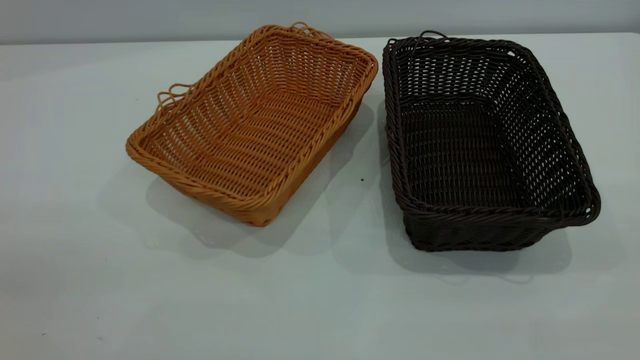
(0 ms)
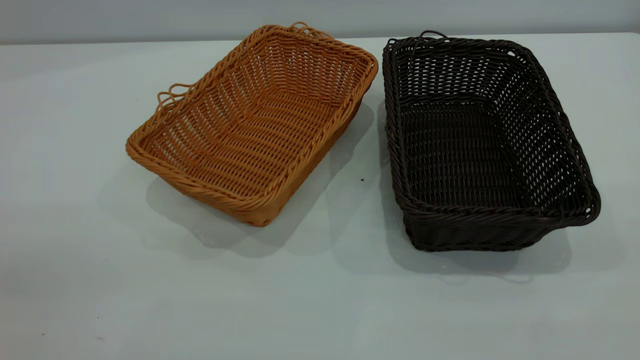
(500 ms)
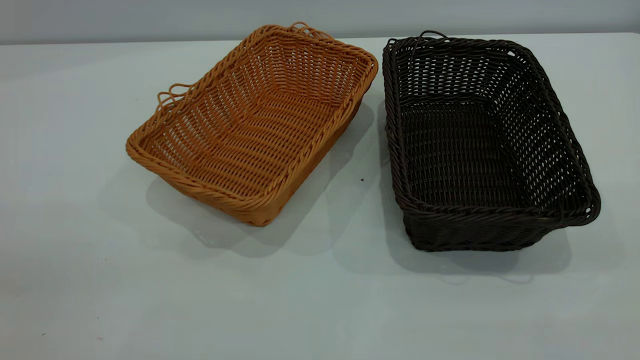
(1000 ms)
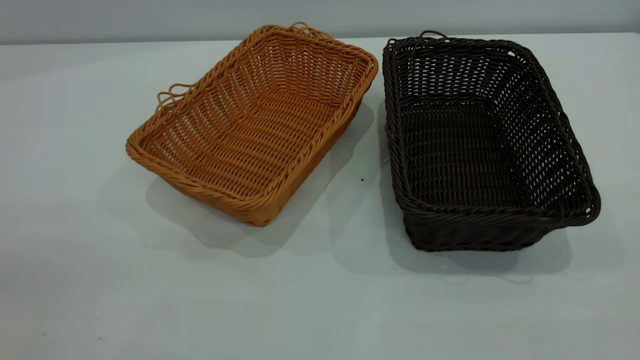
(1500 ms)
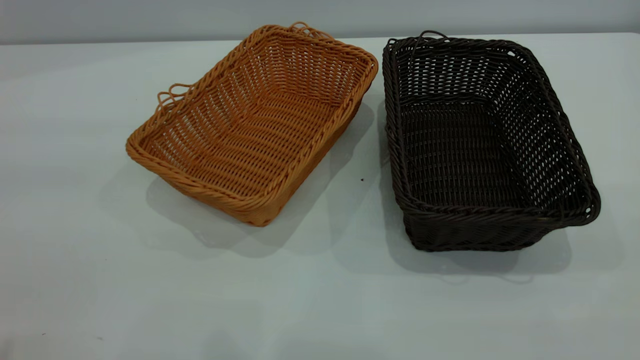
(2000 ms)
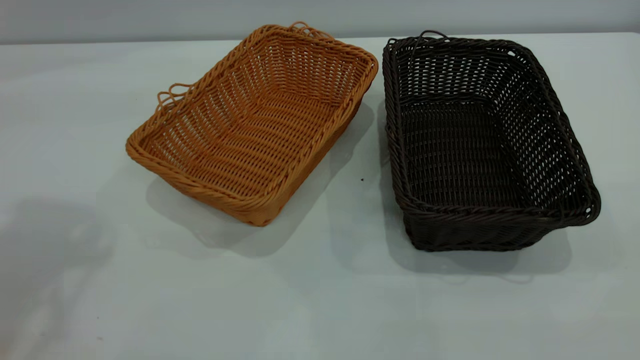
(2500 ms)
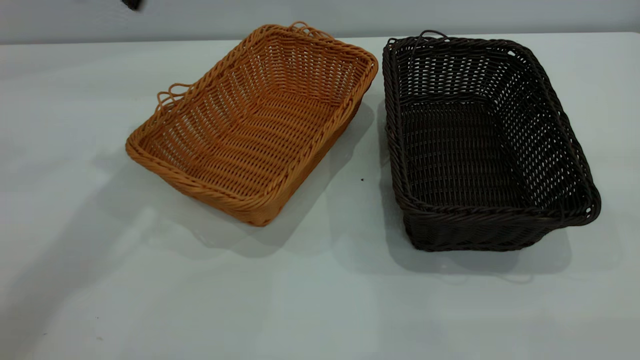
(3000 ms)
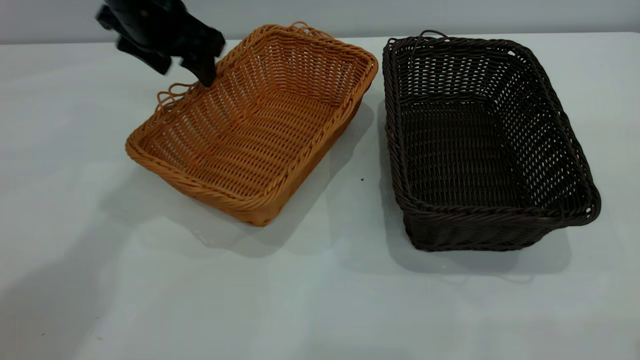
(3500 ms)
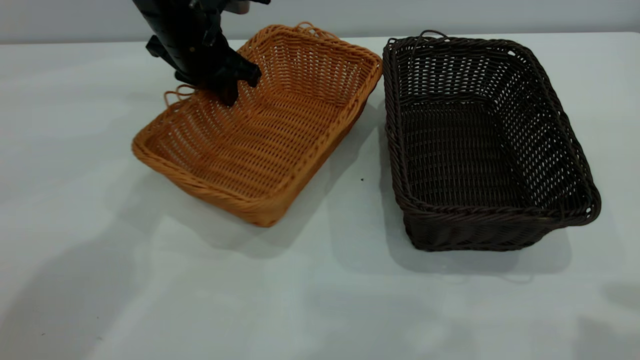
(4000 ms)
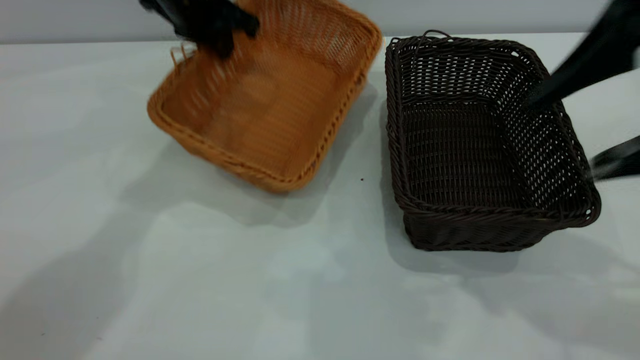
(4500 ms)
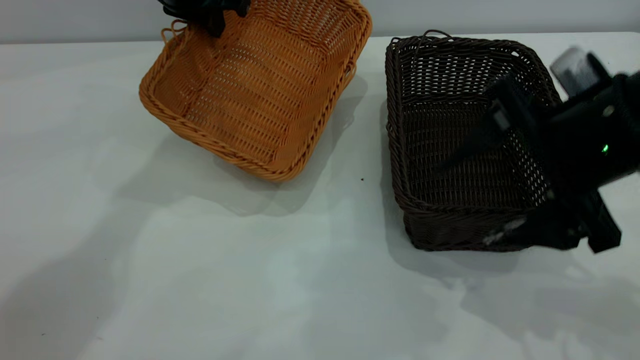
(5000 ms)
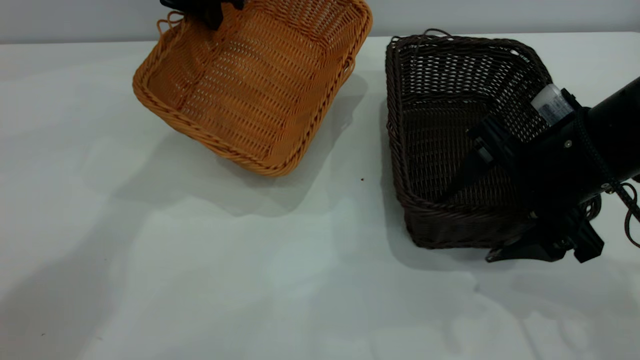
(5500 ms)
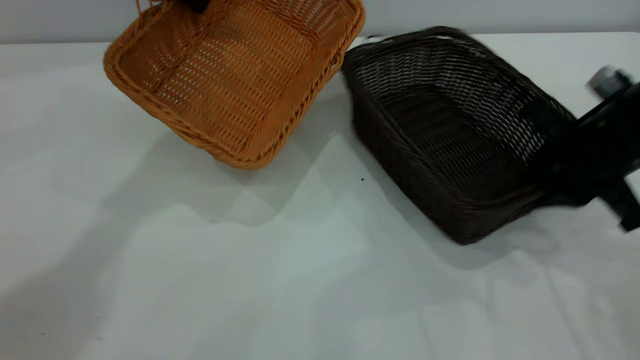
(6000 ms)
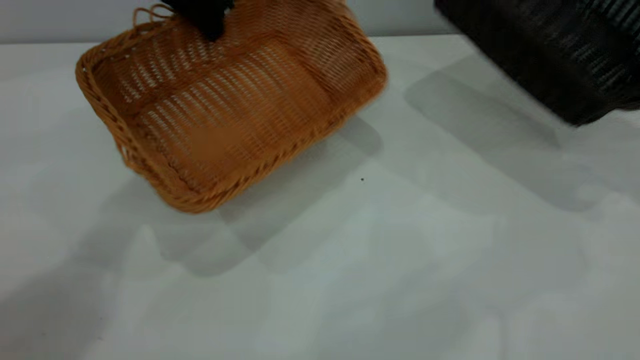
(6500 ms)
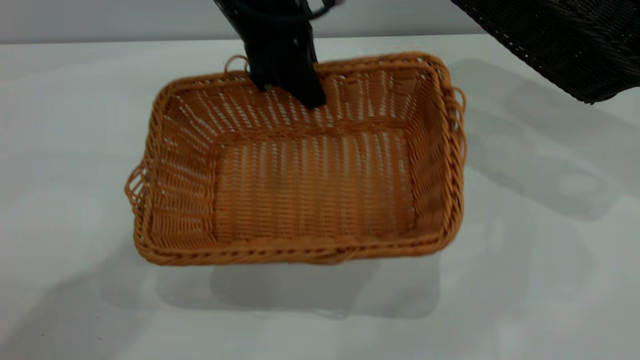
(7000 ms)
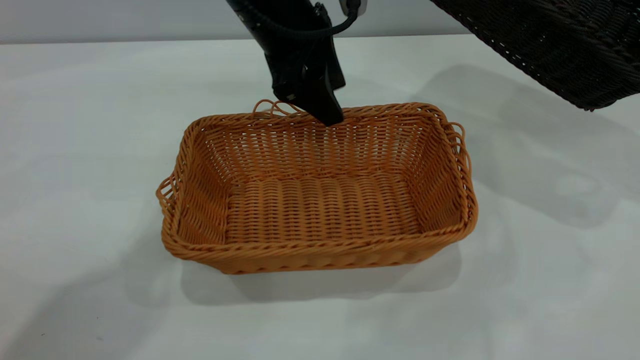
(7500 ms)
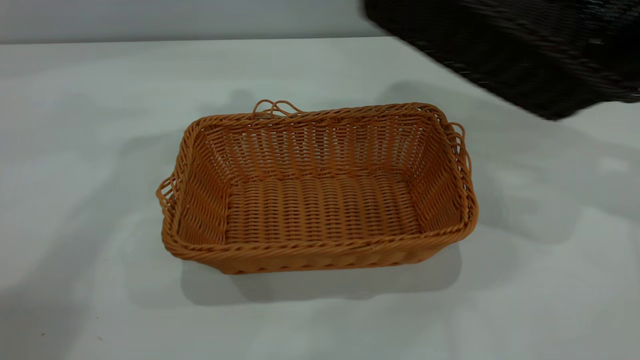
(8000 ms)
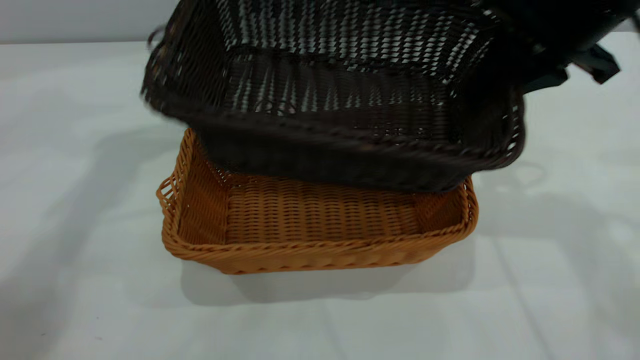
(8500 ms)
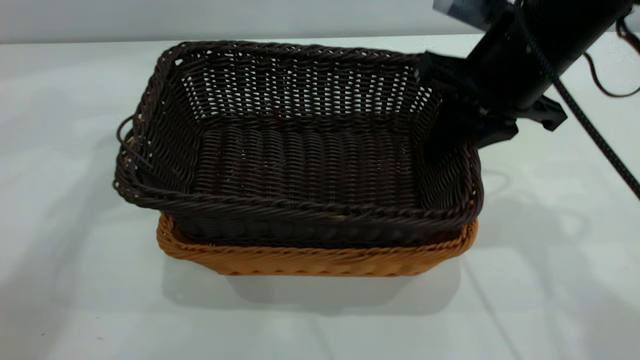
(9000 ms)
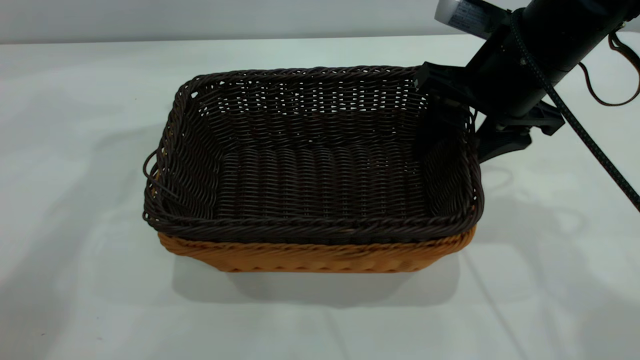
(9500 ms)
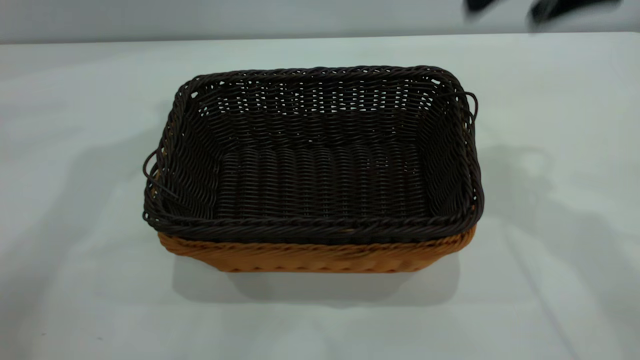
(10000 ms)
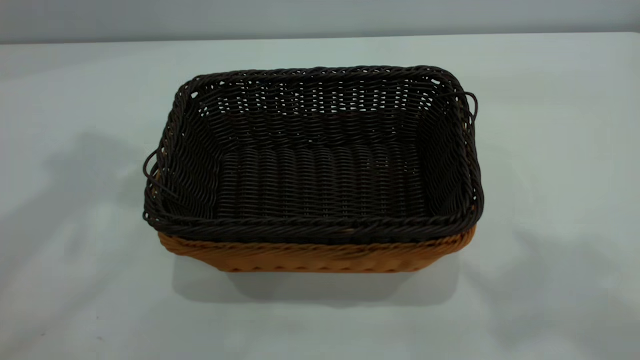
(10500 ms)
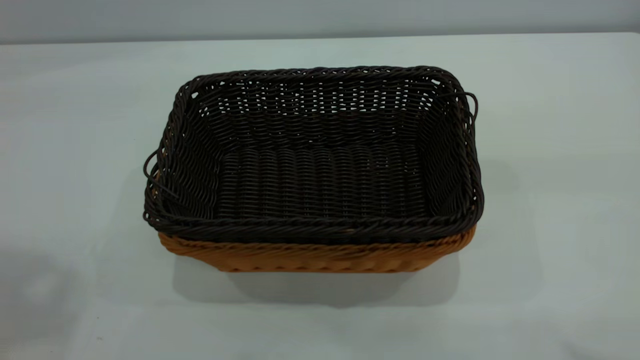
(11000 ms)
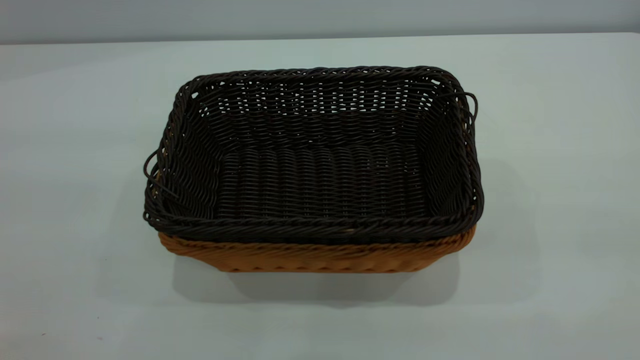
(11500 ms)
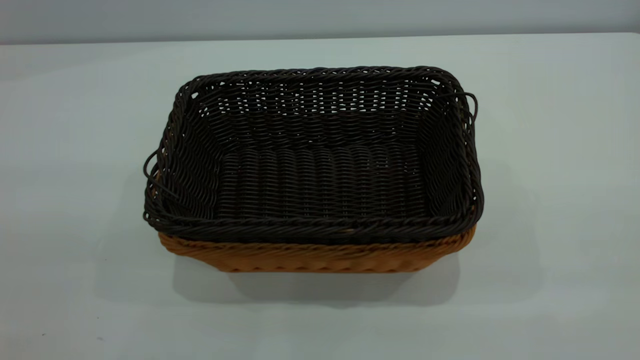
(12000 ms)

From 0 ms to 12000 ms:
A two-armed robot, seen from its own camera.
Task of the whole recording: the left gripper grasp the brown basket and place it in the center of the table, the right gripper grasp the black basket and place it inside the brown one.
Step, from 0 ms to 6000 ms: Pick up the light basket with the right gripper.
Step, from 6500 ms to 7500 ms: Place the light-colored basket in the center.
Step, from 8000 ms to 9500 ms: Place the dark basket on top of the light basket.
From 2000 ms to 4000 ms: The right gripper is displaced forward by roughly 15 cm, while the left gripper shifts roughly 50 cm forward, downward and to the right, and closes up.
From 4000 ms to 6000 ms: The left gripper travels upward by roughly 10 cm; the right gripper moves downward and forward, approximately 25 cm, and closes up.
From 6000 ms to 8000 ms: The right gripper moves upward and to the right, some 15 cm. Meanwhile the left gripper goes to the right and returns, approximately 10 cm each way, and opens.
From 8000 ms to 10000 ms: The right gripper heads to the left and upward, covering approximately 15 cm, and opens its fingers. Meanwhile the left gripper is displaced upward by roughly 10 cm.
From 10000 ms to 12000 ms: The two grippers go approximately 35 cm backward.
